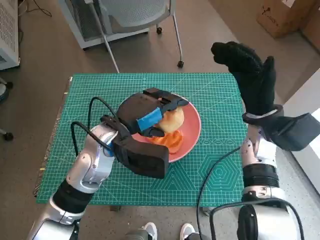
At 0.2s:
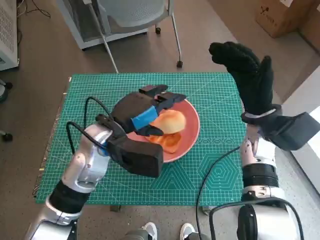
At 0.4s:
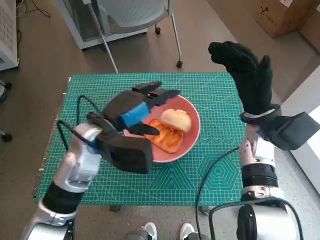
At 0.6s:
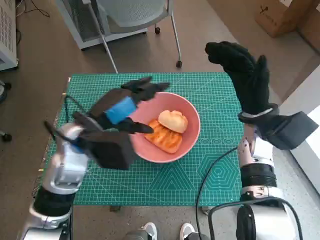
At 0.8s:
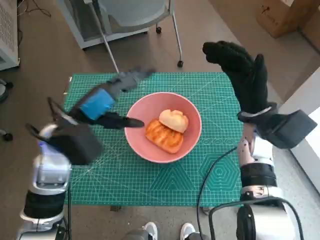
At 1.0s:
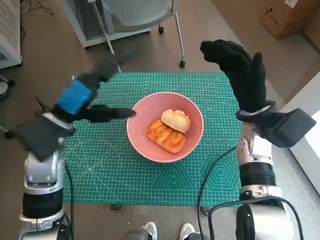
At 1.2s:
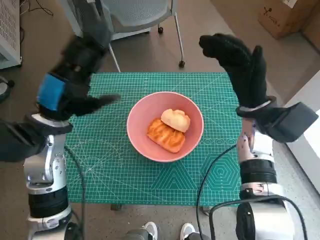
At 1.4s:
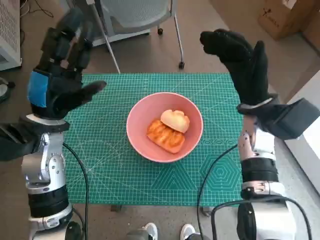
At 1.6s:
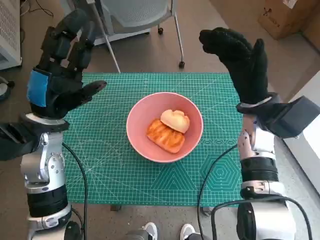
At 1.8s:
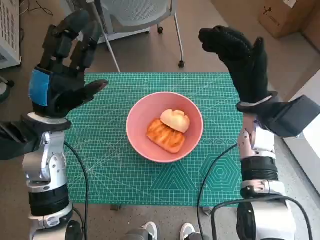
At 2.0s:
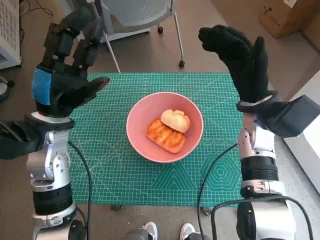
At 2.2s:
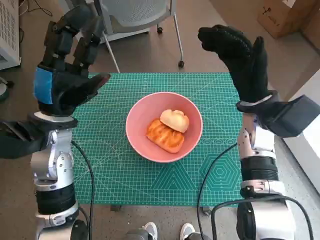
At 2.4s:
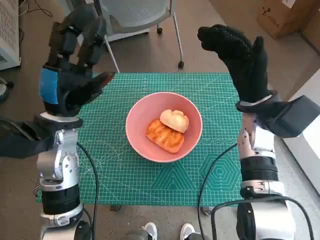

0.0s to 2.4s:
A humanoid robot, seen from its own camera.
0.0s to 1.2s: The left hand goes some 10 cm to the left.
1.2s to 2.4s: The hands move only a little.

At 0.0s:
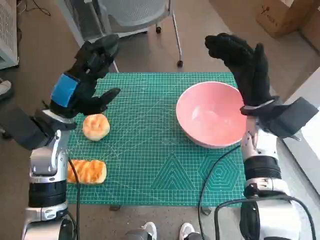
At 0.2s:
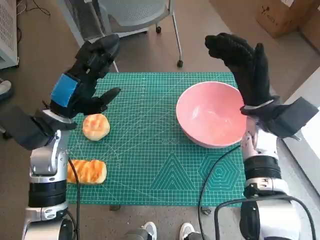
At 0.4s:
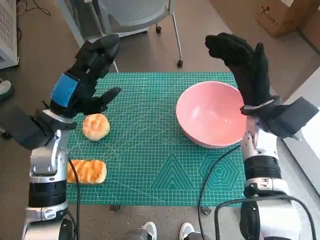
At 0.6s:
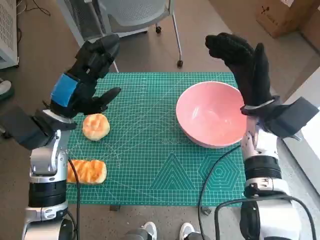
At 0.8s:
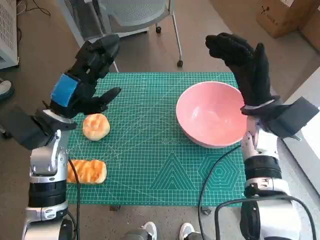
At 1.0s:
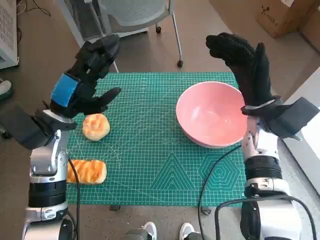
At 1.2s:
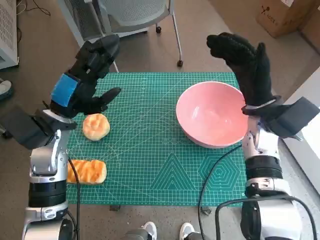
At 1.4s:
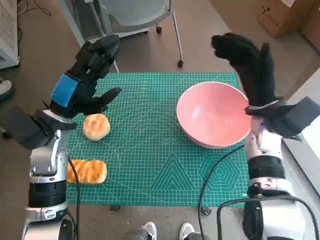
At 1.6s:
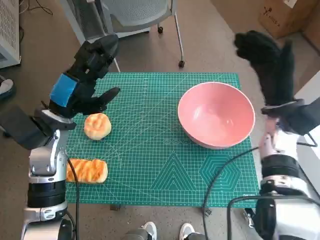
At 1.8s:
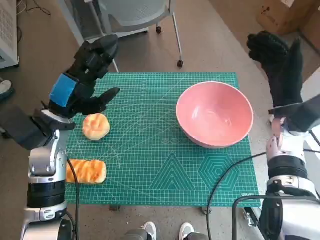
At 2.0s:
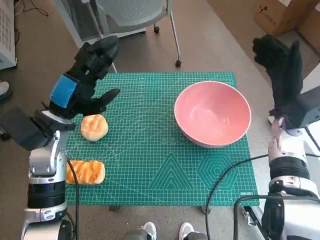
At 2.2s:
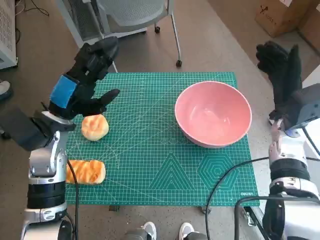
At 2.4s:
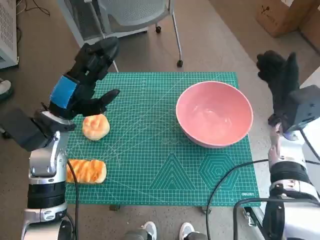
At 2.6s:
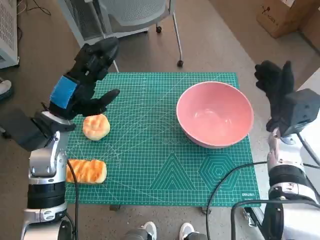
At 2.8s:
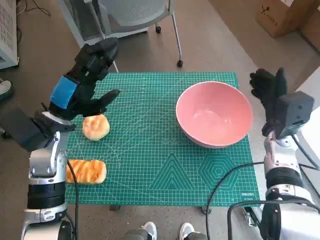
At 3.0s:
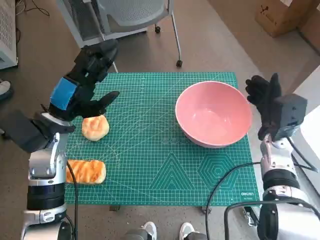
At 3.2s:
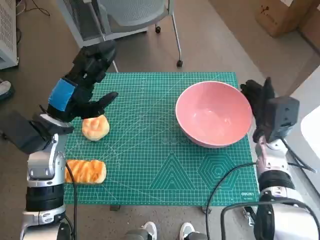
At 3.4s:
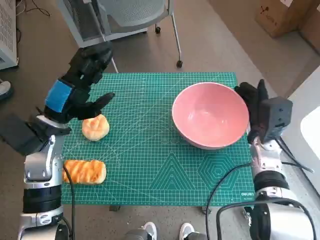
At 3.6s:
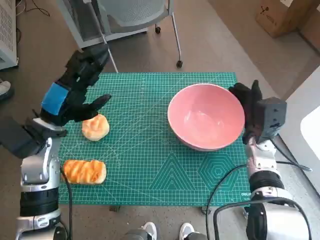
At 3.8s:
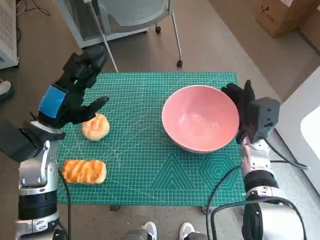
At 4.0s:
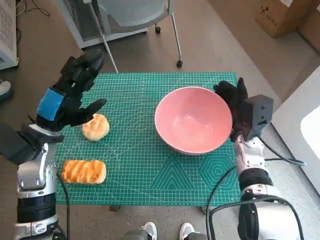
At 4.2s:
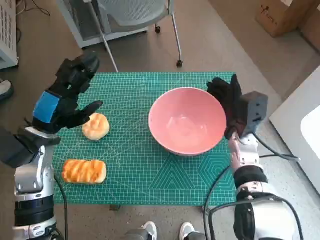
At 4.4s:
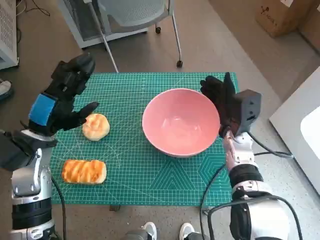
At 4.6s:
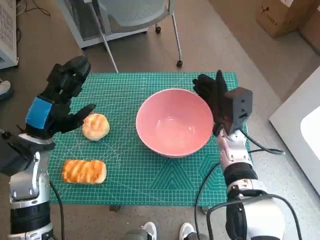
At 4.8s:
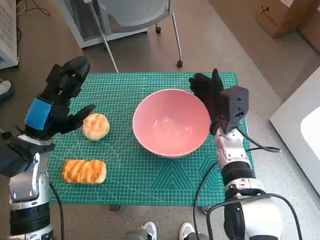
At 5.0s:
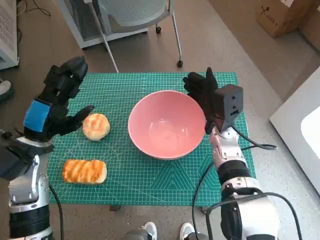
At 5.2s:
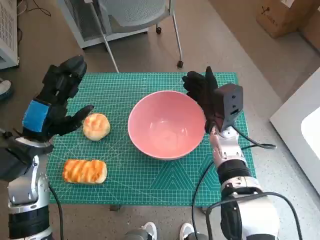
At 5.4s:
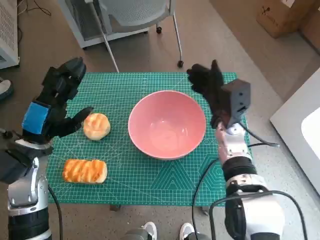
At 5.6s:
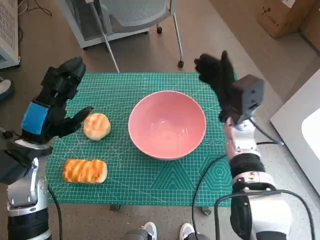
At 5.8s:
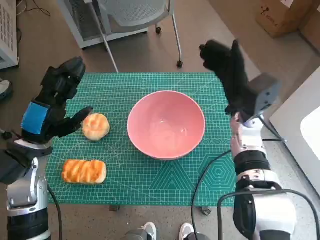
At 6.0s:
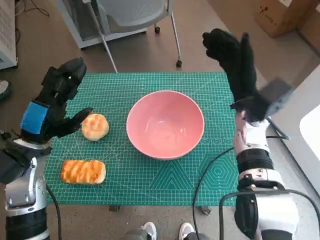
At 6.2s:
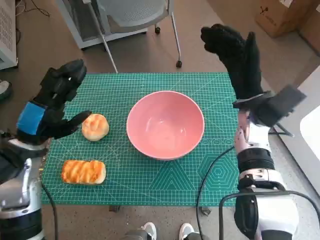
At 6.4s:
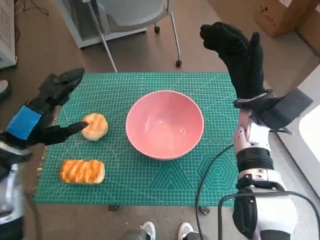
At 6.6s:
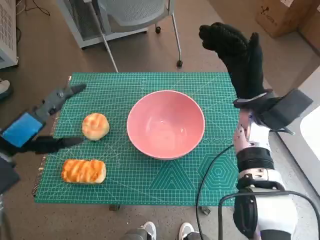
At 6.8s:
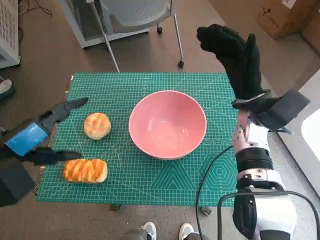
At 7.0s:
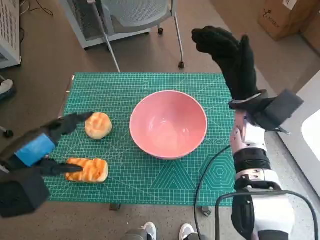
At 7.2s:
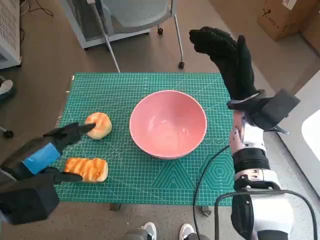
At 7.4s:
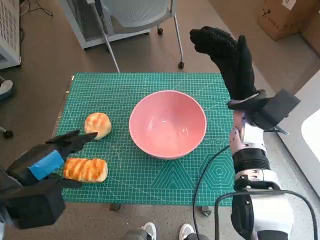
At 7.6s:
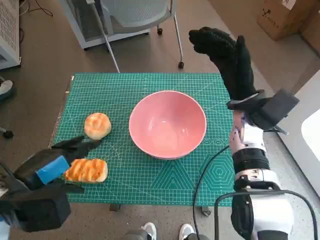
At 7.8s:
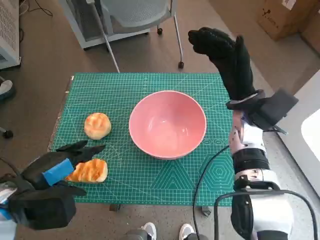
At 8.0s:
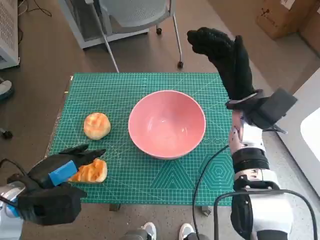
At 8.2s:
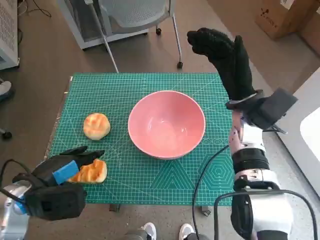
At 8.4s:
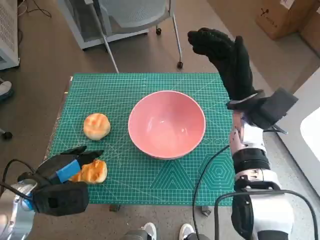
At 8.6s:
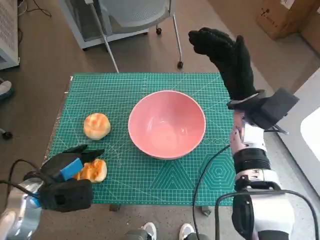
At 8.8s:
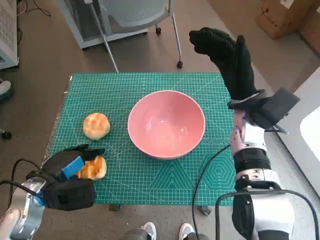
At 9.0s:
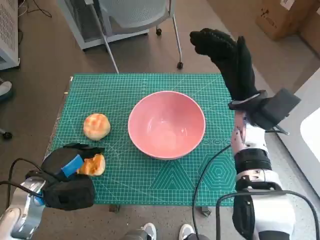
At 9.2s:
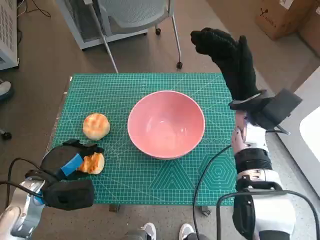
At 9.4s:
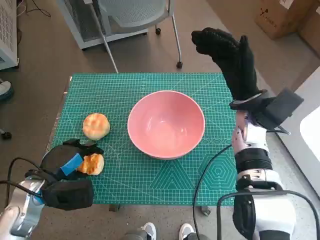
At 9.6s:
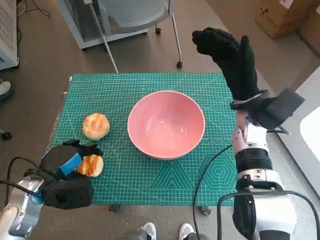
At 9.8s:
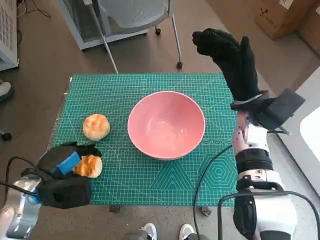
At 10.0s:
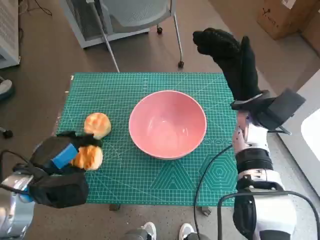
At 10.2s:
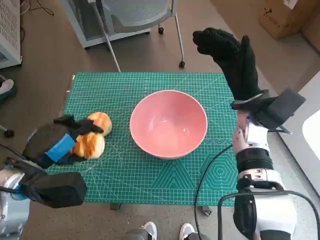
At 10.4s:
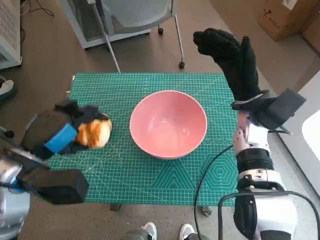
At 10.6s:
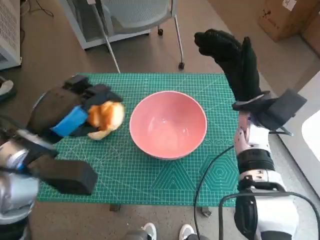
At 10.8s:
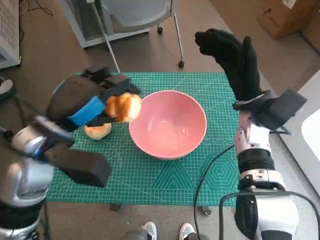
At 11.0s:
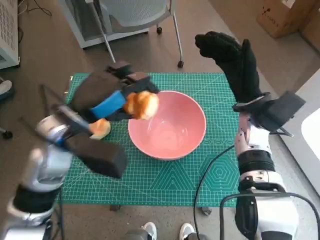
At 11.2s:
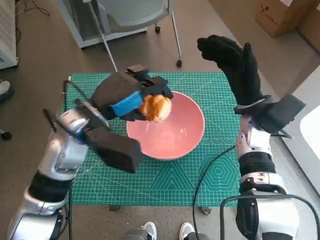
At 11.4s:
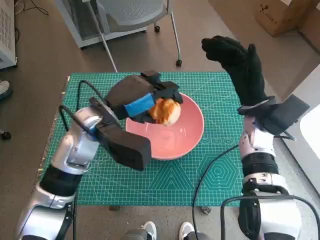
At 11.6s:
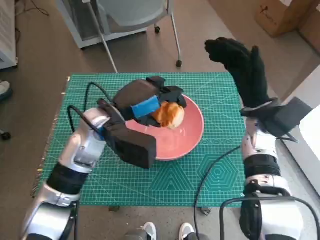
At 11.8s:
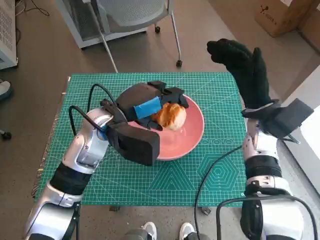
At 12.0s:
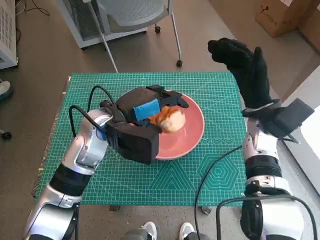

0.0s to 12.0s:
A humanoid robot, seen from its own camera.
Step, 0.0s to 5.2s: Move the pink bowl to the center of table with right hand.
Step, 5.4s to 9.0s: Grasp the long bread with left hand.
1.6s to 3.0s: The right hand goes some 5 cm downward.
3.0s to 4.4s: The right hand shifts about 10 cm to the left.
4.4s to 6.0s: The right hand goes about 5 cm upward.
6.0s to 7.6s: The left hand goes roughly 5 cm backward.
7.6s to 9.0s: The left hand moves downward, approximately 10 cm.
9.0s to 10.4s: The left hand goes approximately 10 cm upward.
10.4s to 12.0s: The left hand heads to the right and forward, covering roughly 15 cm.

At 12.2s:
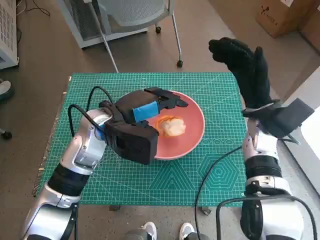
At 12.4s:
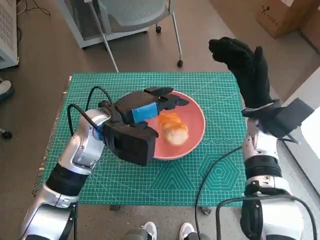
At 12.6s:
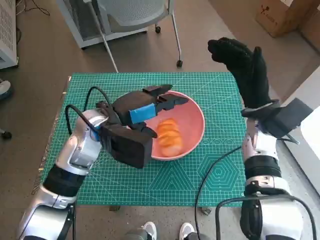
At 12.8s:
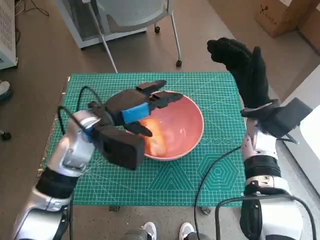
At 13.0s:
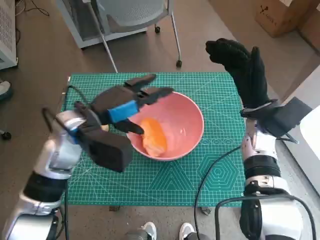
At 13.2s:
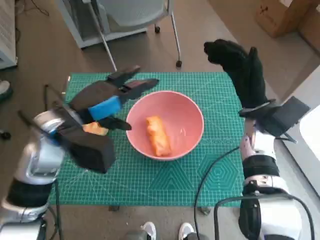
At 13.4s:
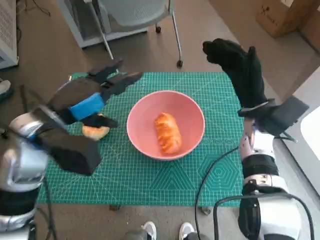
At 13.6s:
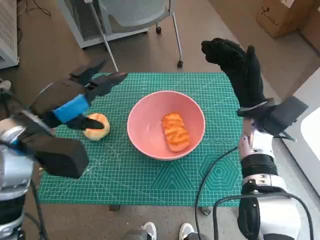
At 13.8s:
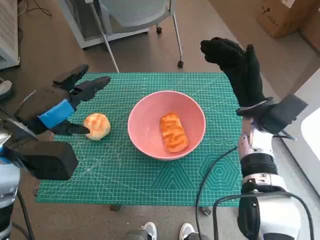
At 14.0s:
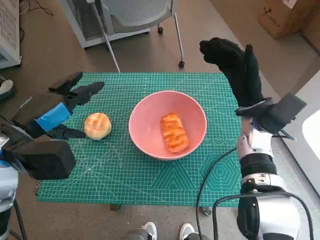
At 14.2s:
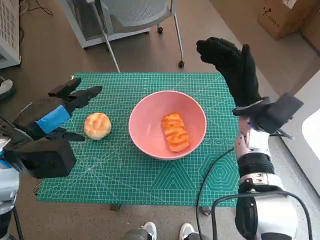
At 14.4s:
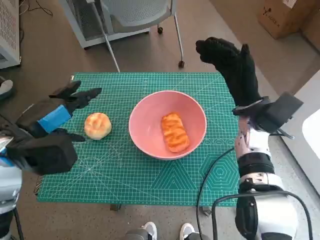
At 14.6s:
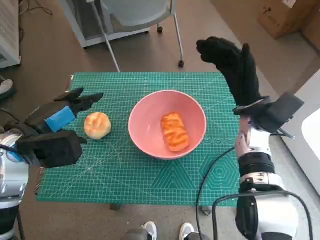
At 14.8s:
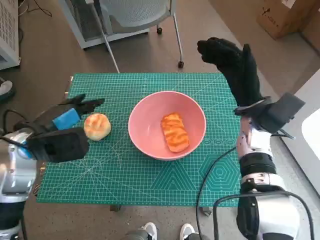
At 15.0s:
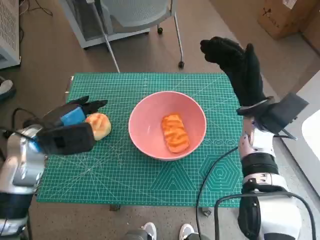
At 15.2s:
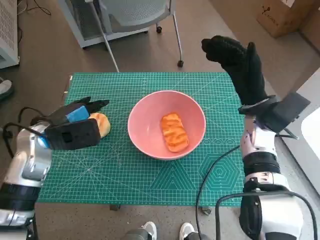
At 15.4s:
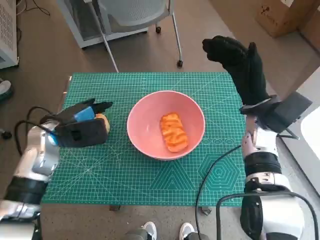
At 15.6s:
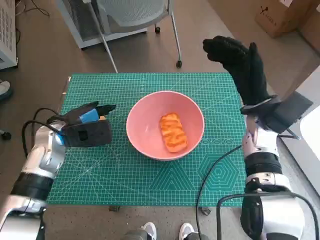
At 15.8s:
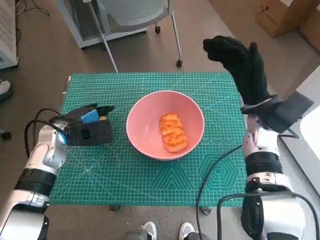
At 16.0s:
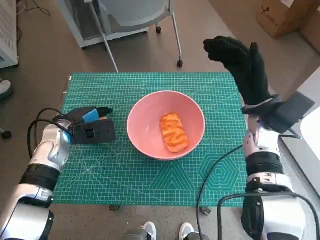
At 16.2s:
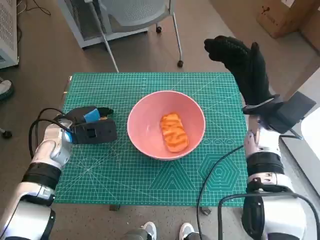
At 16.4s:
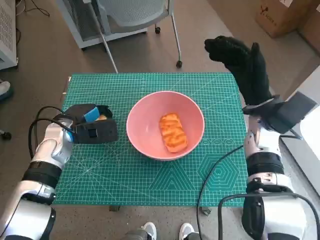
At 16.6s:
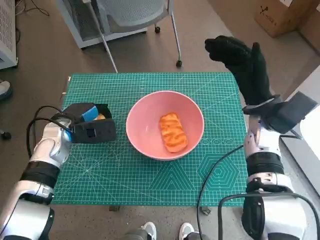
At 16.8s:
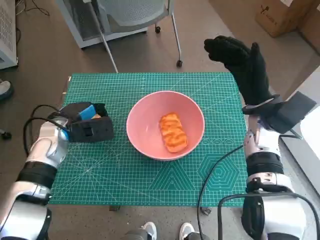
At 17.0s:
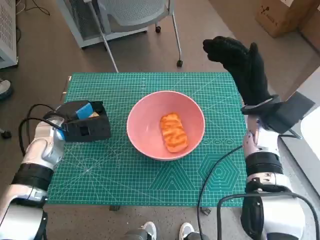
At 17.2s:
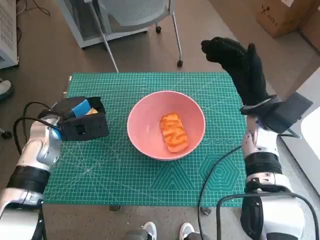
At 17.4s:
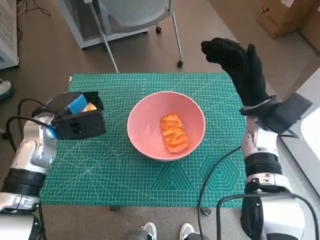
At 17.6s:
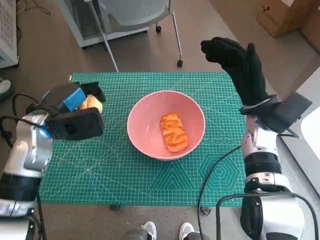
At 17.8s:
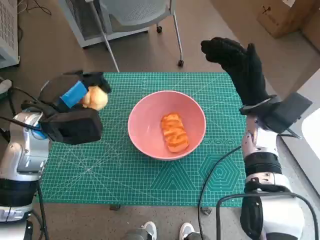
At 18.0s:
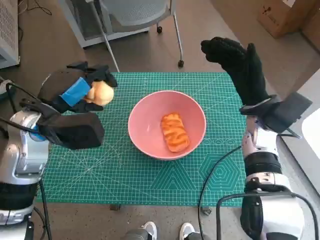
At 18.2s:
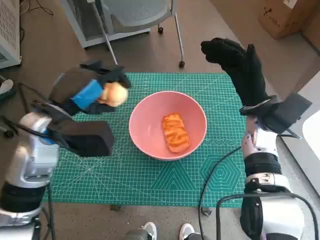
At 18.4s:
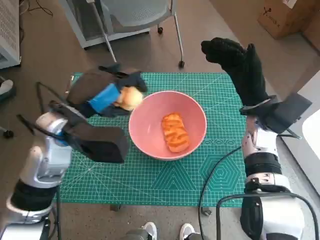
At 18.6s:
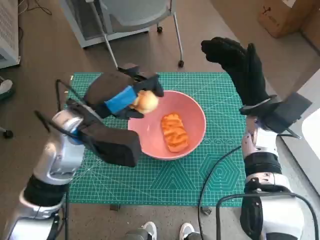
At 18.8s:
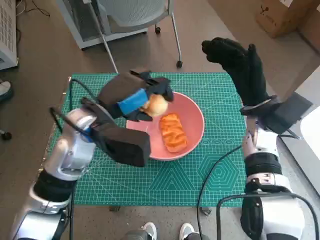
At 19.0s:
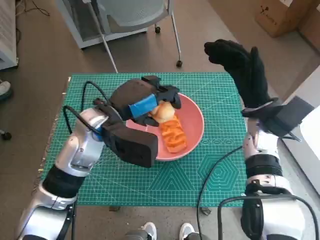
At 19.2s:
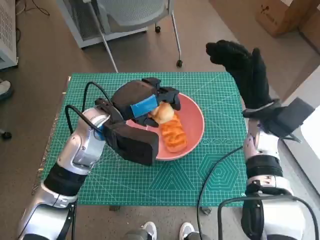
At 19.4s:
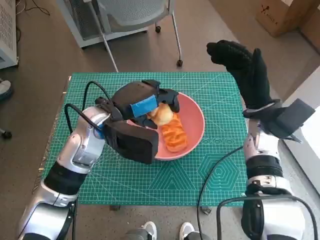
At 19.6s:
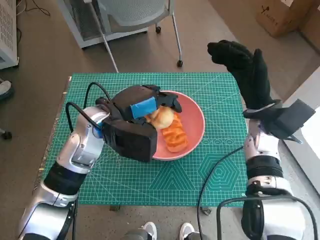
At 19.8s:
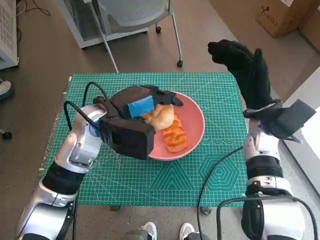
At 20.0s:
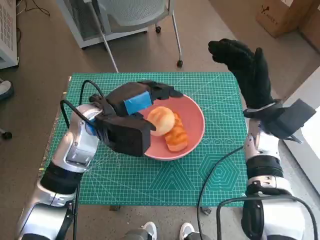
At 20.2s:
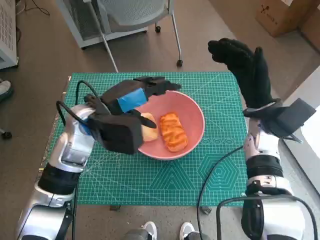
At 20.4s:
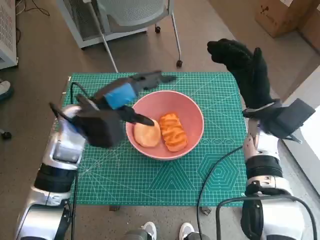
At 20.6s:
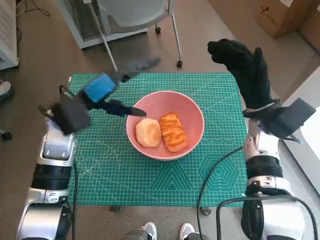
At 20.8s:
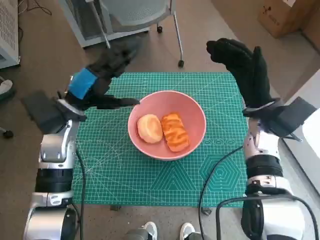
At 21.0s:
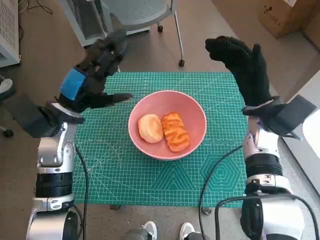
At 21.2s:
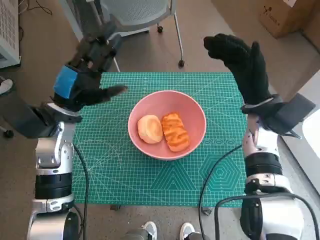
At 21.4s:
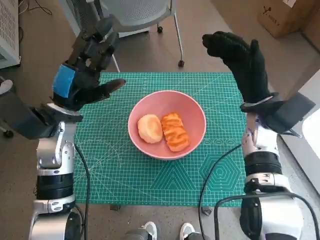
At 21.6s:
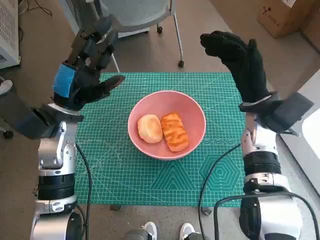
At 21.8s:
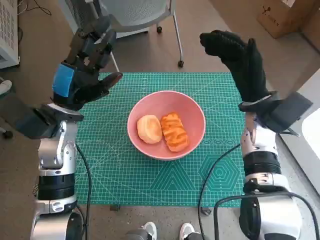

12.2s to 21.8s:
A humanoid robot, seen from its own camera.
Step, 12.8s to 16.4s: Grasp the round bread with left hand.
Step, 16.6s to 20.0s: Place the round bread in pink bowl with left hand.
12.2s to 13.8s: The left hand is displaced to the left and backward by about 15 cm.
13.8s to 15.4s: The left hand shifts roughly 10 cm downward and forward.
15.4s to 17.0s: The hands move only a little.
17.0s to 18.6s: The left hand moves to the right and upward, approximately 15 cm.
20.2s to 21.8s: The left hand is displaced to the left by some 5 cm.
